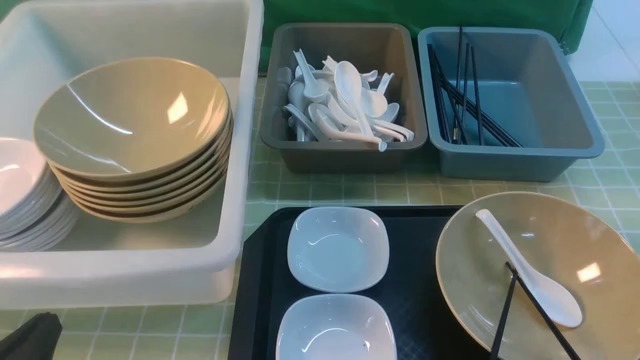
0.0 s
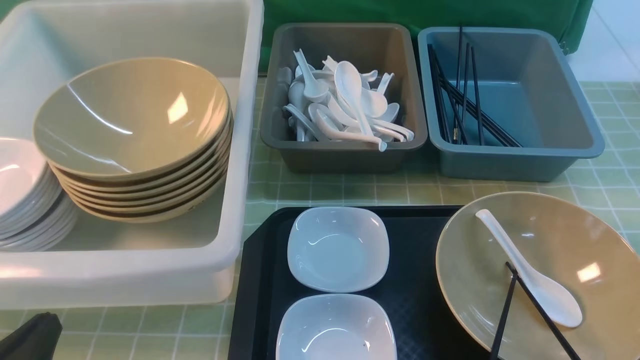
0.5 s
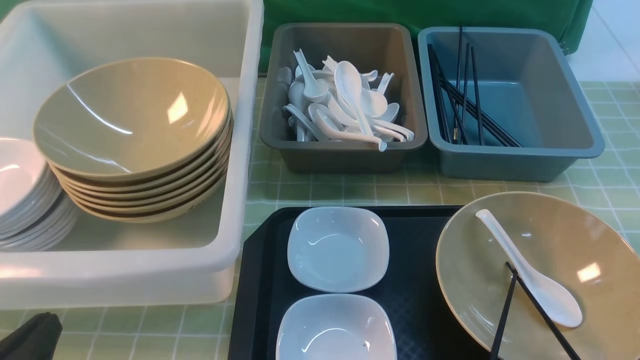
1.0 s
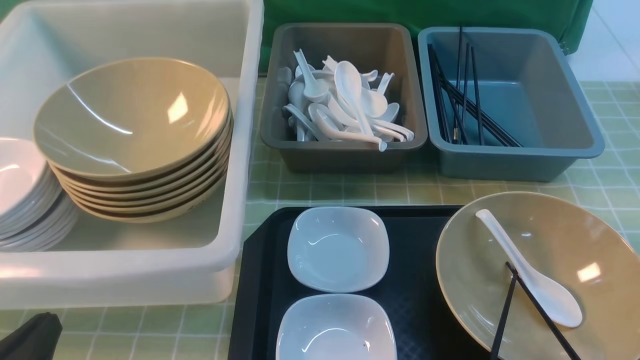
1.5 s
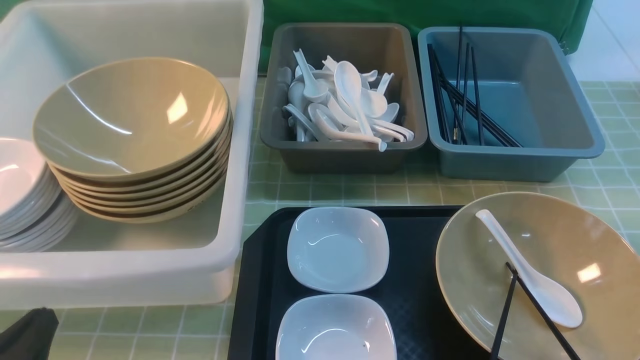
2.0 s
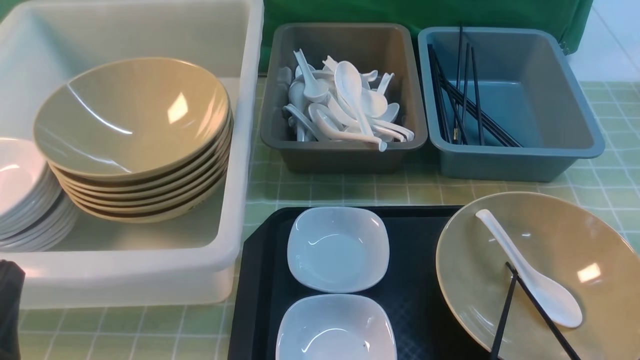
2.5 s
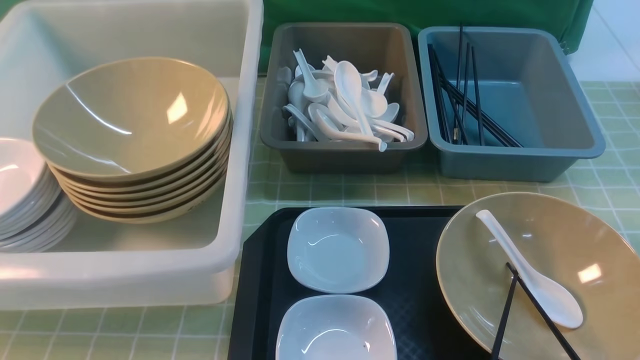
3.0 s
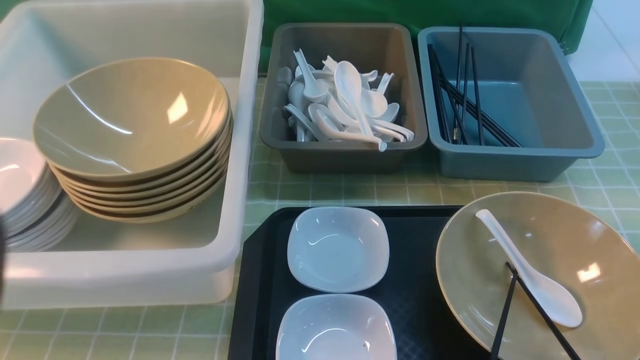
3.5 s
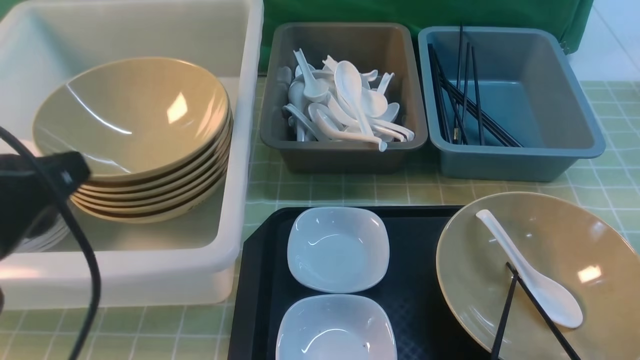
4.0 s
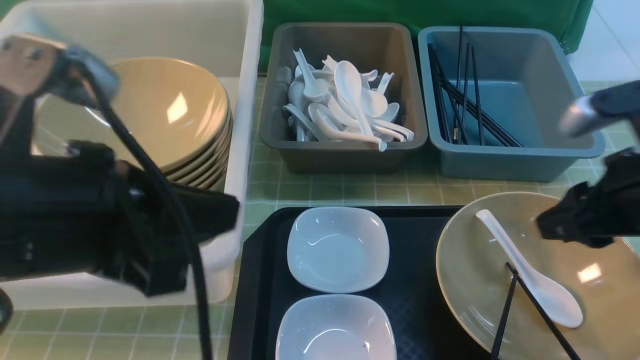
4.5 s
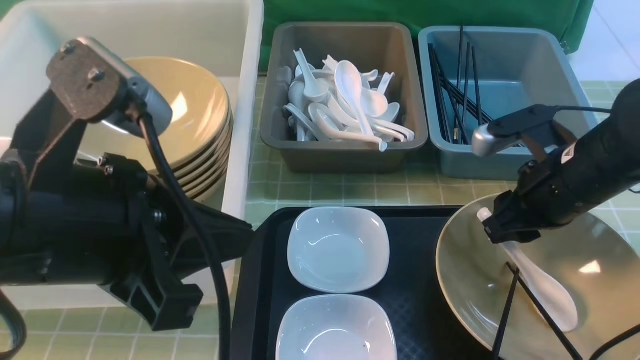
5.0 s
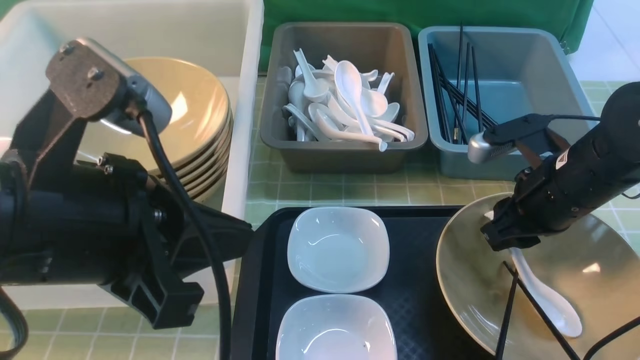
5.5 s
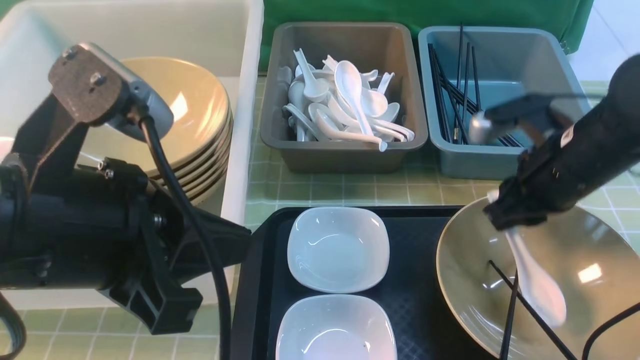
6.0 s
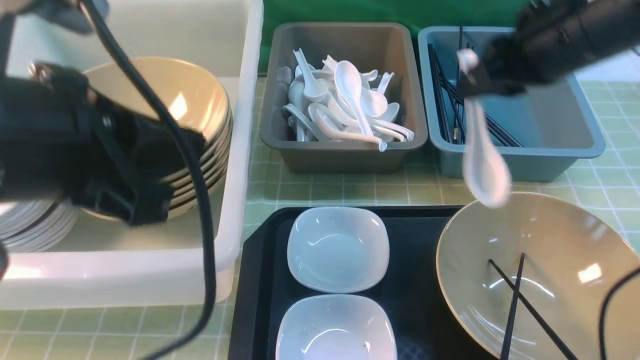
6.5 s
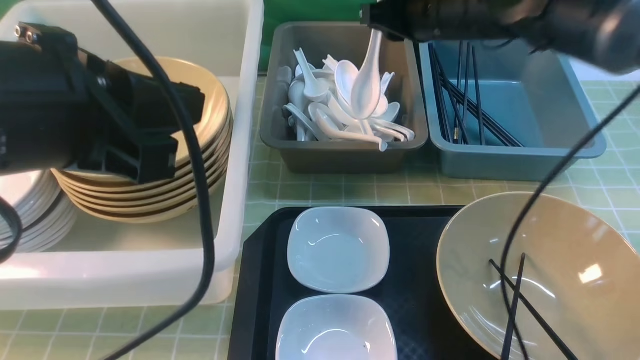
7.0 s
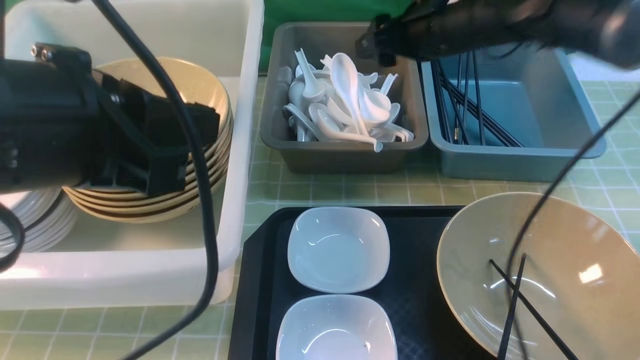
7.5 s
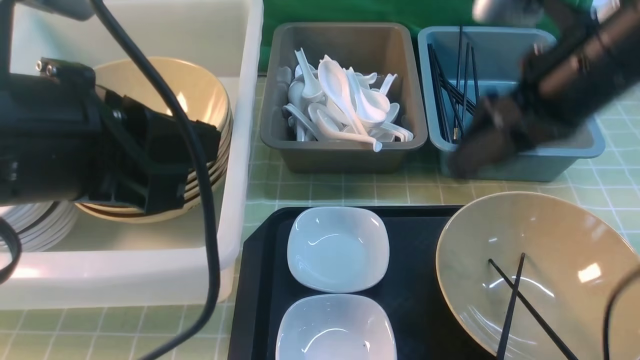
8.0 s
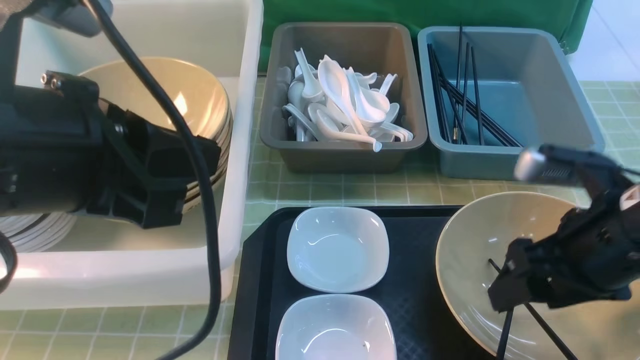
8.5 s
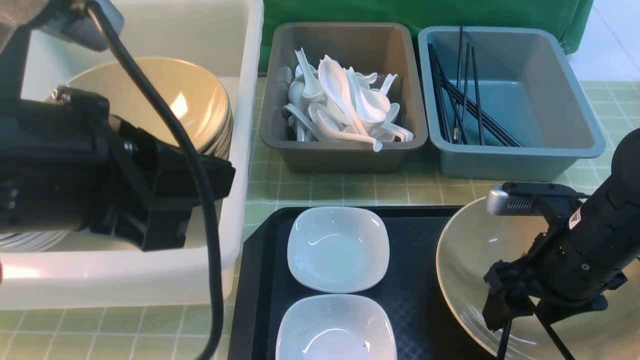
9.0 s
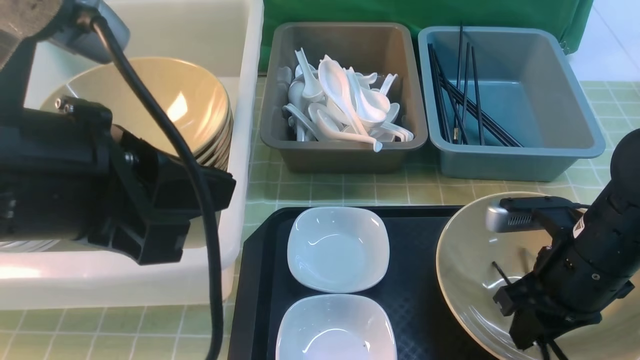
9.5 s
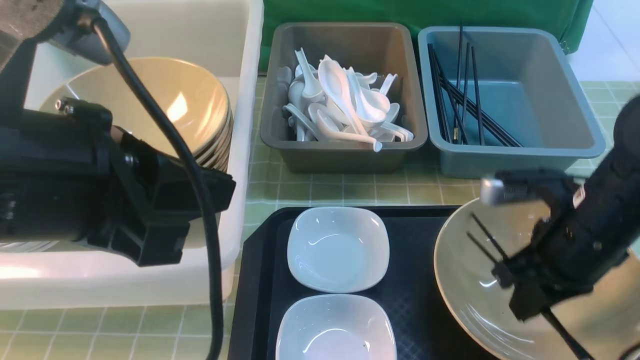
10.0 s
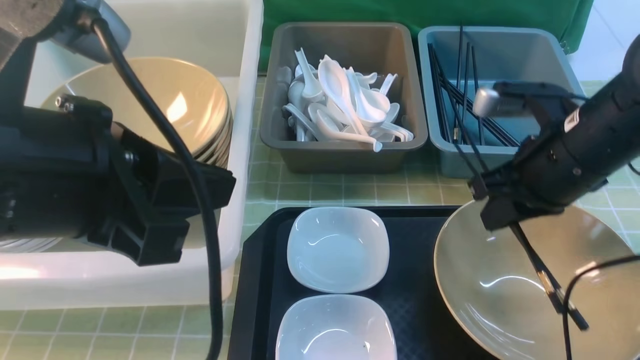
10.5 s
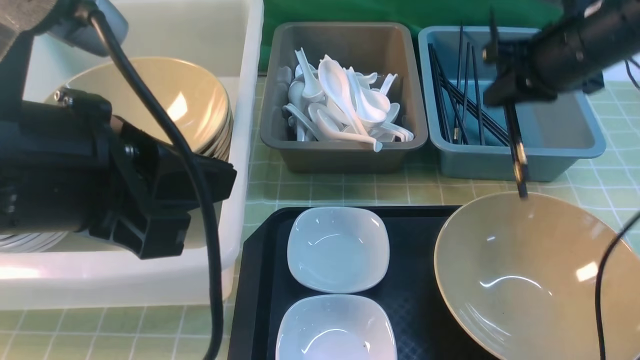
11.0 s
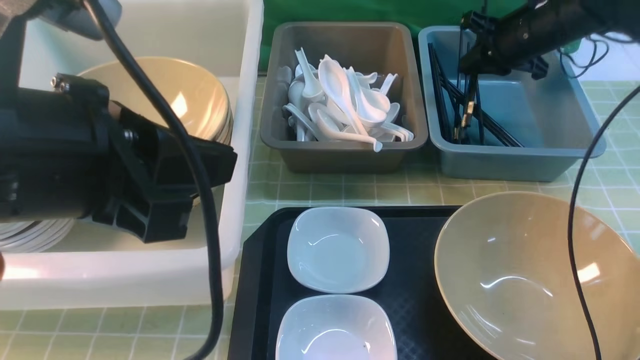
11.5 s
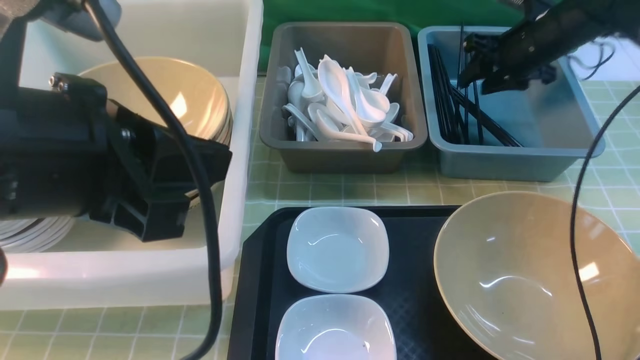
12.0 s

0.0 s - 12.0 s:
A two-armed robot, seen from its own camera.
Task of the whole recording: on green table put chopsticks spoon bowls plates into blue grey white boxes.
Step, 0.0 s - 6.0 s: use the right arm to grab the soup spoon in the middle.
Step, 6.5 s - 7.0 s: use the right arm to put the soup spoon into the small storage box in the middle.
Step, 7.5 s - 10.5 s: use the right arm to grab the chopsticks.
2.0 s - 4.0 s: The left gripper heads upward and forward, covering about 15 cm.
4.0 s - 6.0 s: The right gripper shifts about 20 cm forward and to the left; the left gripper goes about 5 cm to the right.
6.0 s - 8.0 s: The right gripper goes some 10 cm upward, travels forward and back again, roughly 15 cm each way, and opens up.
8.0 s - 10.0 s: The right gripper is displaced downward by some 10 cm, and closes up.
10.0 s - 12.0 s: The right gripper moves forward, some 25 cm, and opens its fingers.

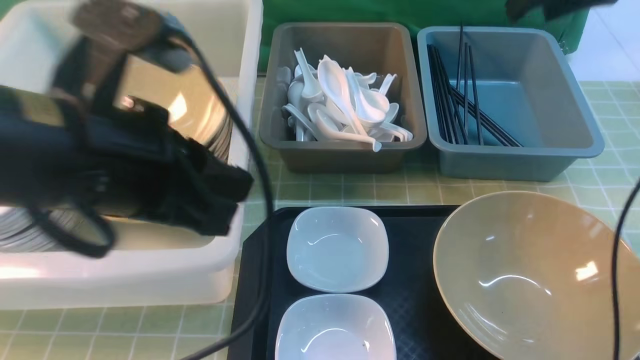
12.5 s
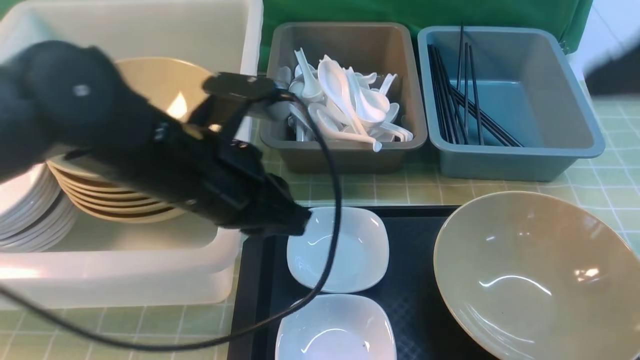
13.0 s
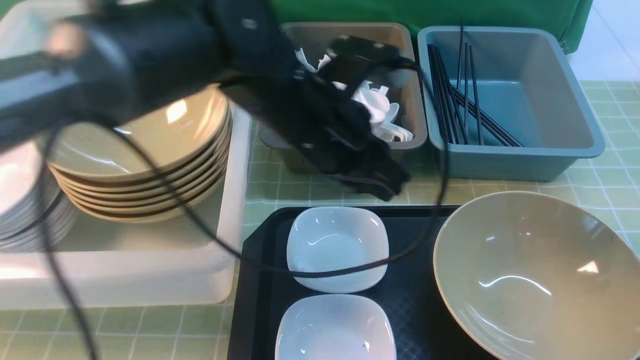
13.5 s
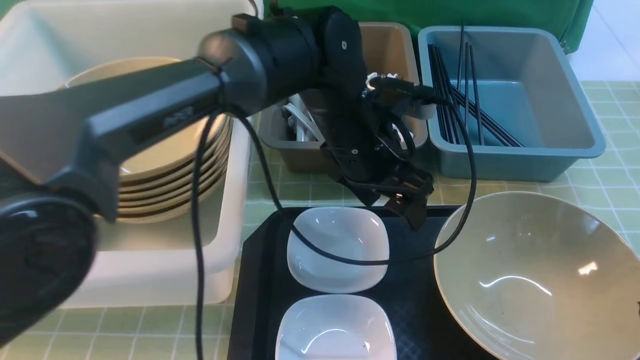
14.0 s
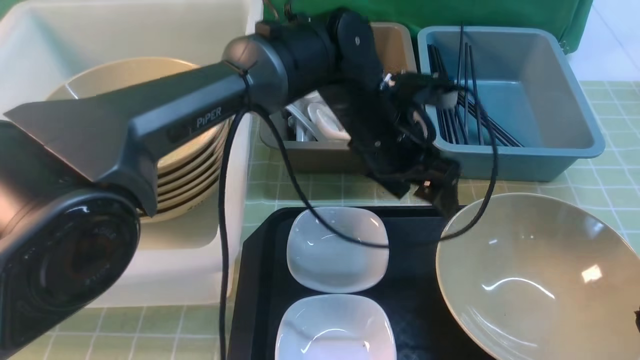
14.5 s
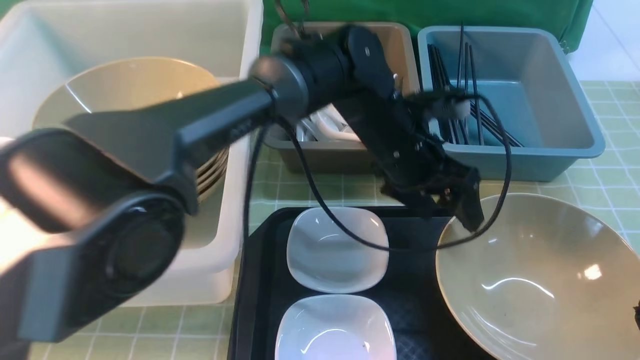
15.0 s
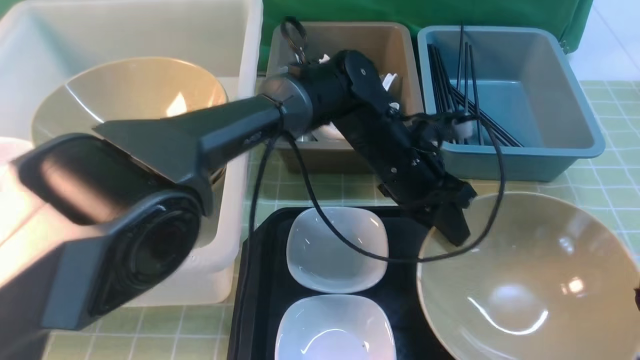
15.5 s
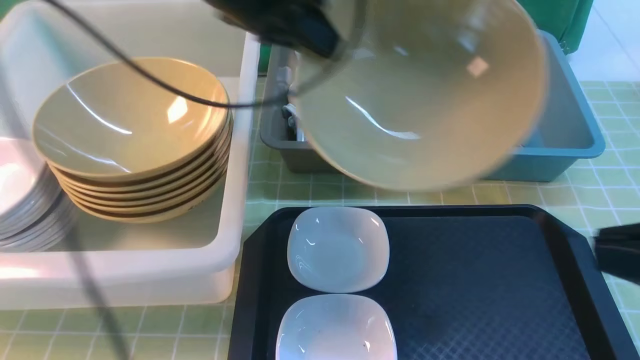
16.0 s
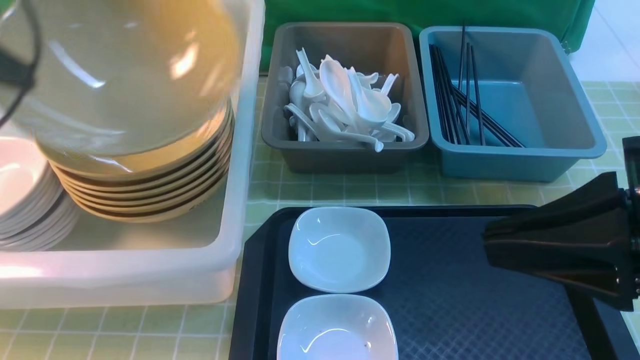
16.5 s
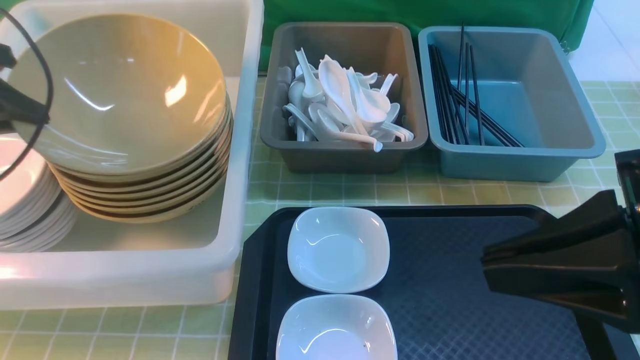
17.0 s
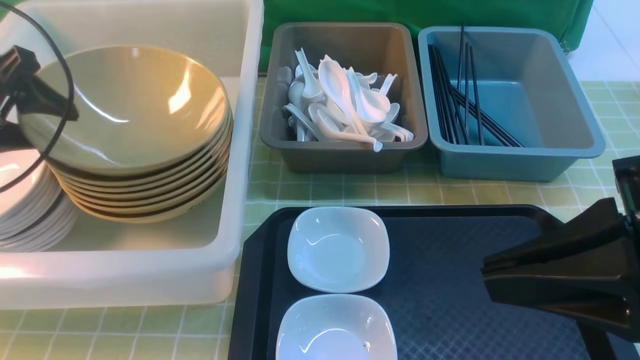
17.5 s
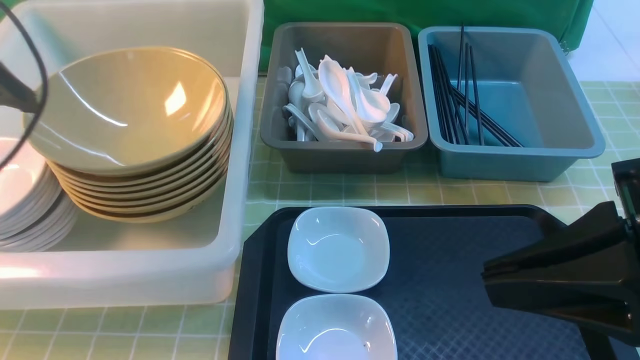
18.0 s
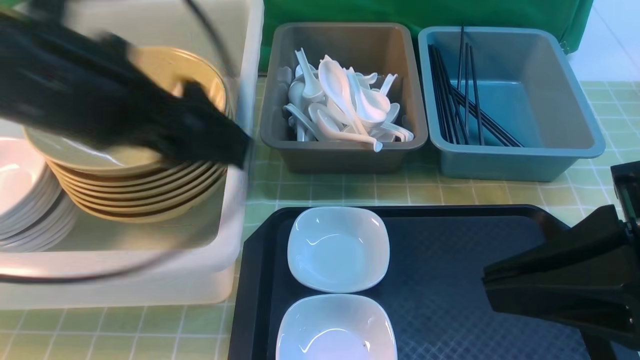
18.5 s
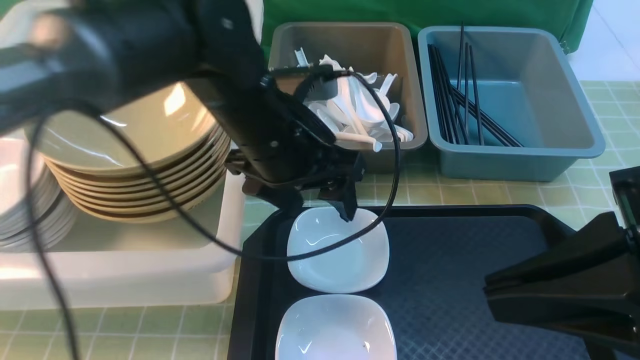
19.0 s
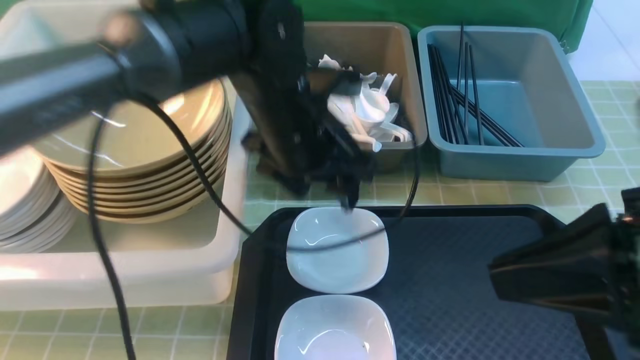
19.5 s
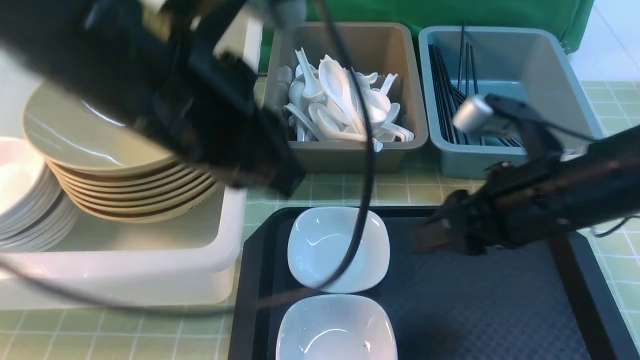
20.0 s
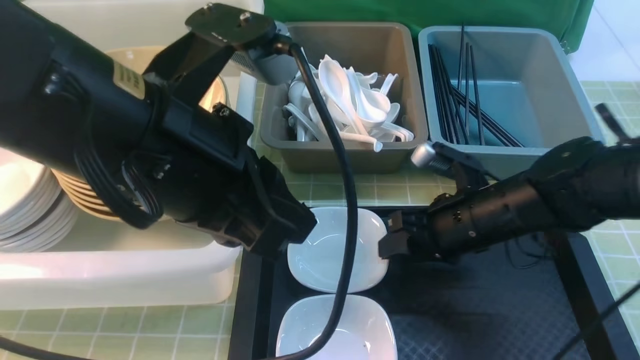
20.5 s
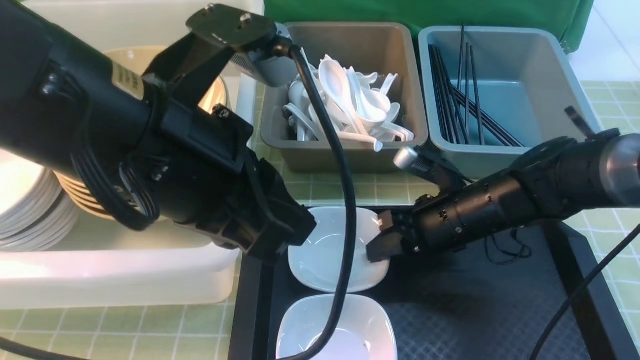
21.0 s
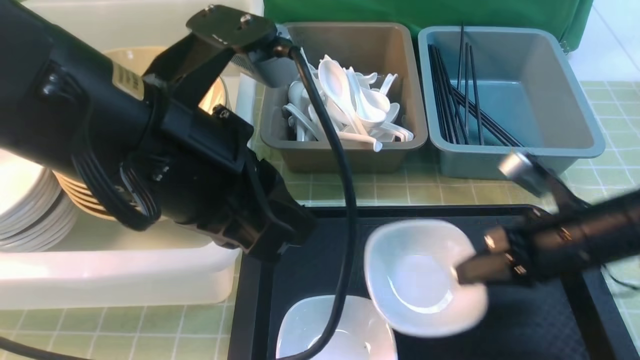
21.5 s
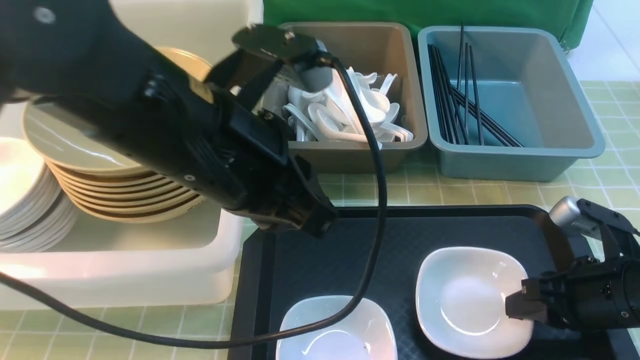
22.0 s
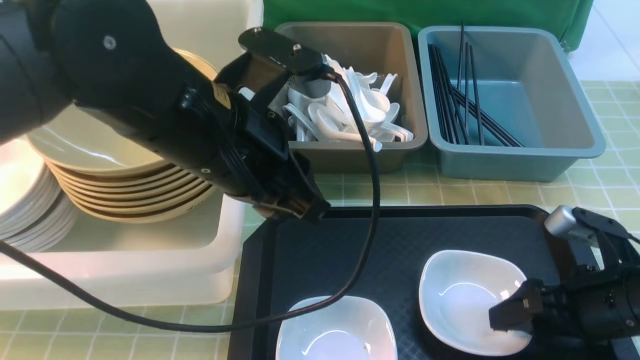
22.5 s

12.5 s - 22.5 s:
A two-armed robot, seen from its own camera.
Task of the whole recording: on green table put chopsticks spoon bowls plates into blue grey white boxes.
Step, 12.5 s - 15.5 s: use the left arm to grab the yellow noodle bowl on the left.
Step, 16.0 s - 18.0 s: use the left arm to put the noodle bowl into the large storage box on the left.
Step, 18.5 s - 21.0 s: use the right arm to grab the plate.
12.5 s - 14.5 s: The right gripper travels backward by roughly 35 cm, and closes. Meanwhile the left gripper goes about 30 cm to the right, forward and downward, and opens up.
14.5 s - 16.5 s: The right gripper shifts about 5 cm forward, while the left gripper shifts roughly 40 cm to the left, and closes its fingers.
16.5 s - 18.5 s: The left gripper is displaced to the right by some 20 cm, and opens up.
18.5 s - 20.5 s: The right gripper travels downward and forward by approximately 30 cm, and opens up. Meanwhile the left gripper moves backward and to the right, roughly 10 cm, and closes up.
20.5 s - 22.5 s: The right gripper goes about 15 cm to the right and backward, and opens up. The left gripper shifts approximately 10 cm forward and downward.
